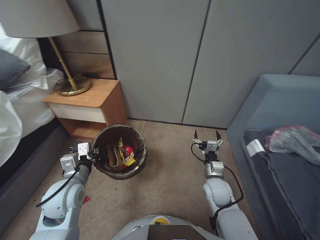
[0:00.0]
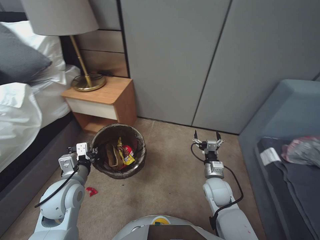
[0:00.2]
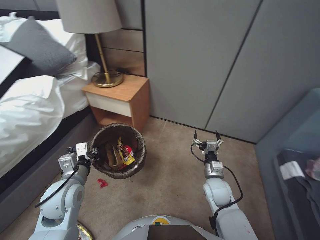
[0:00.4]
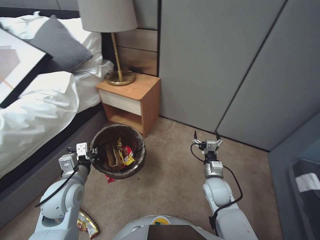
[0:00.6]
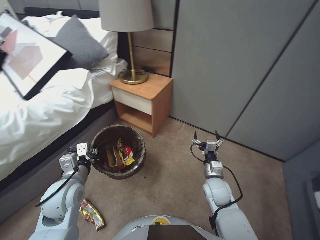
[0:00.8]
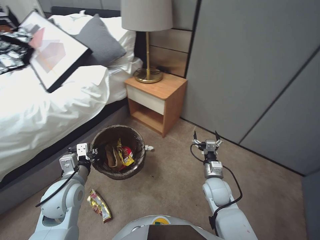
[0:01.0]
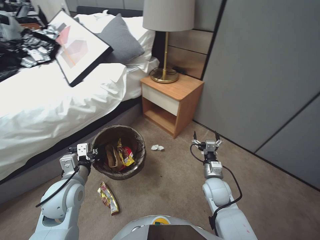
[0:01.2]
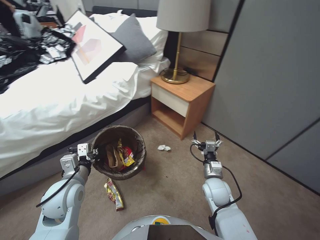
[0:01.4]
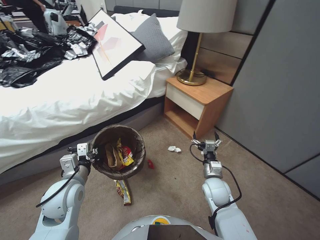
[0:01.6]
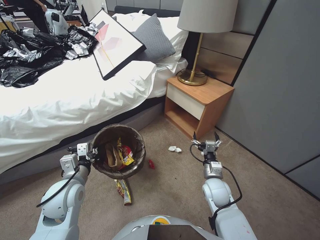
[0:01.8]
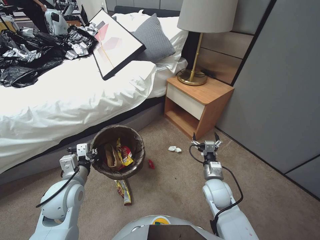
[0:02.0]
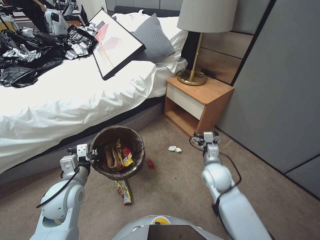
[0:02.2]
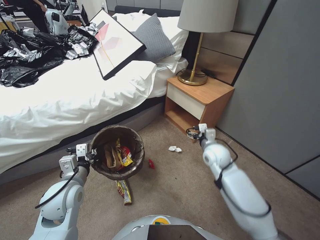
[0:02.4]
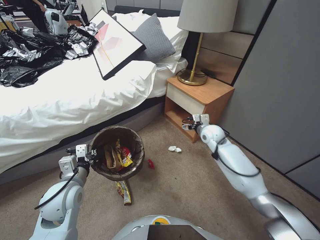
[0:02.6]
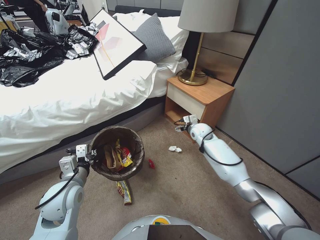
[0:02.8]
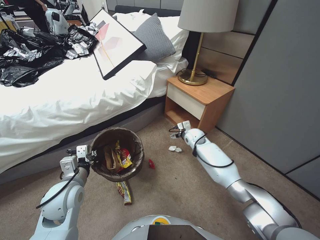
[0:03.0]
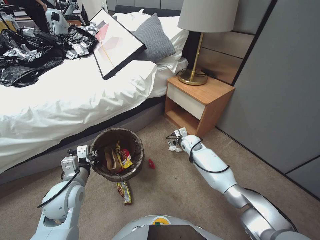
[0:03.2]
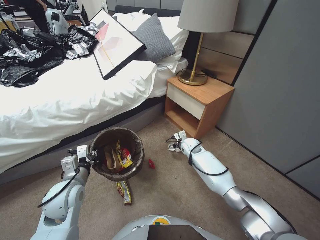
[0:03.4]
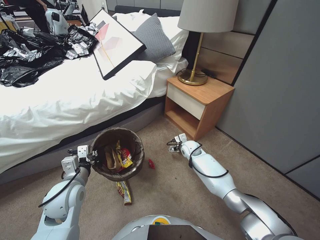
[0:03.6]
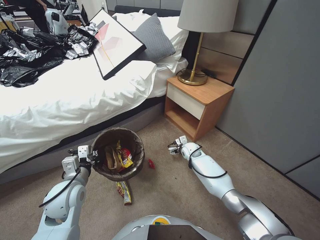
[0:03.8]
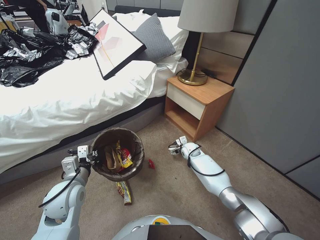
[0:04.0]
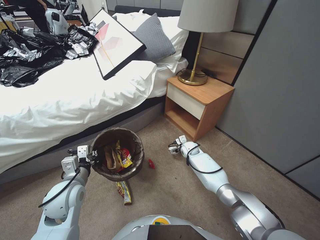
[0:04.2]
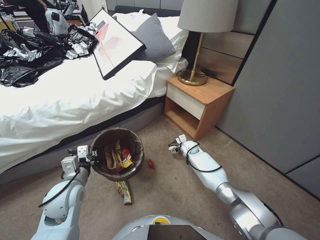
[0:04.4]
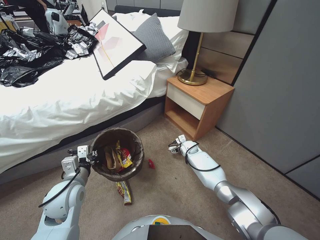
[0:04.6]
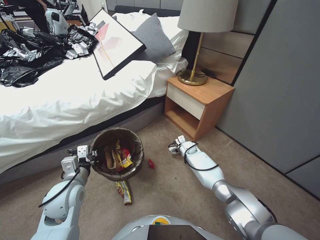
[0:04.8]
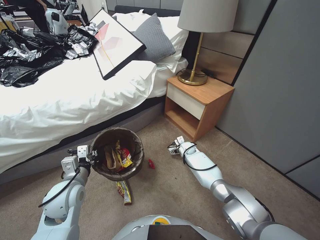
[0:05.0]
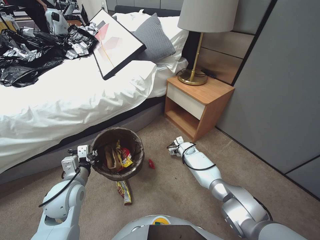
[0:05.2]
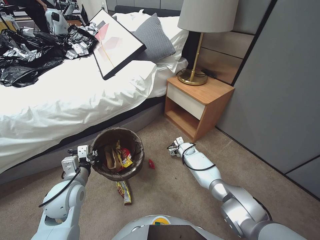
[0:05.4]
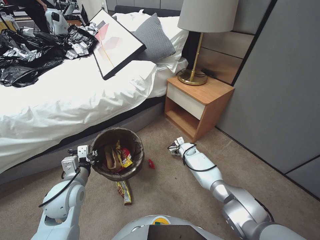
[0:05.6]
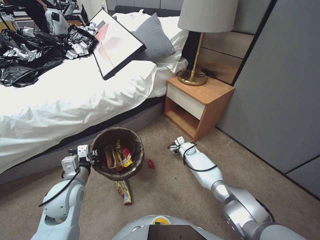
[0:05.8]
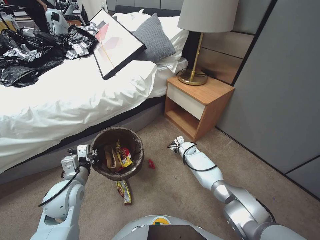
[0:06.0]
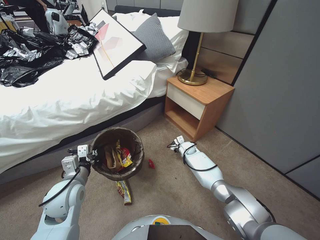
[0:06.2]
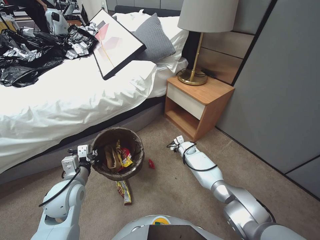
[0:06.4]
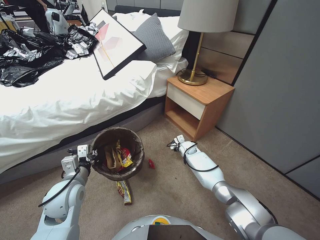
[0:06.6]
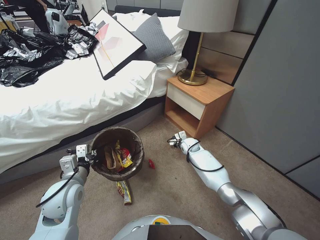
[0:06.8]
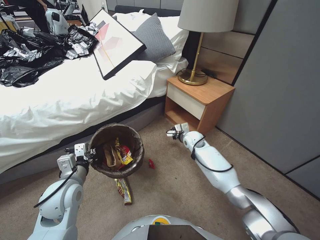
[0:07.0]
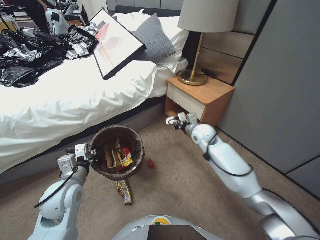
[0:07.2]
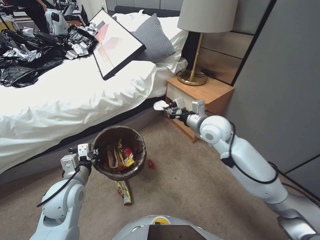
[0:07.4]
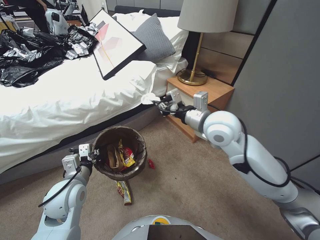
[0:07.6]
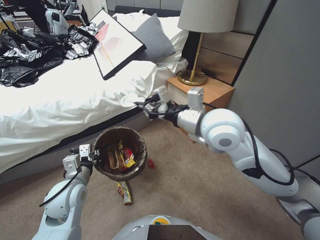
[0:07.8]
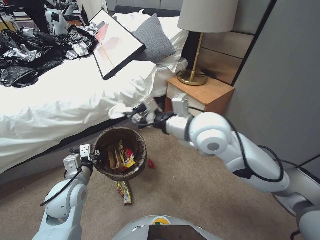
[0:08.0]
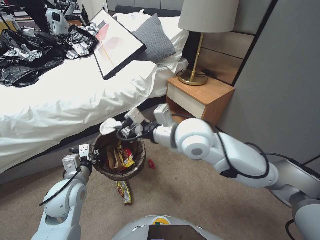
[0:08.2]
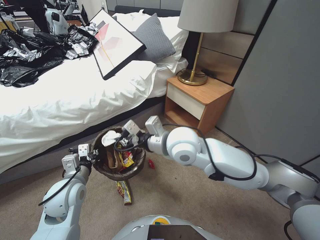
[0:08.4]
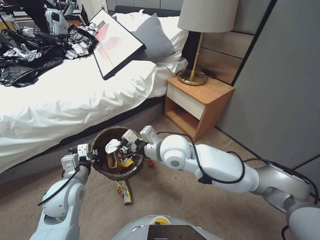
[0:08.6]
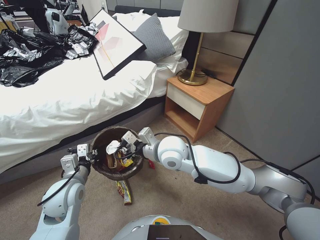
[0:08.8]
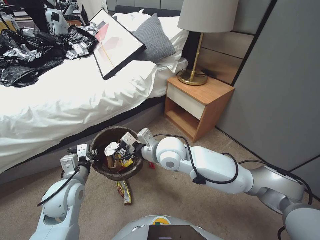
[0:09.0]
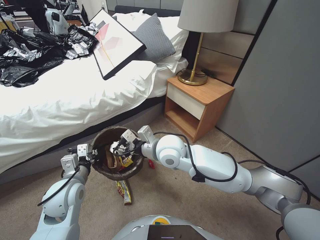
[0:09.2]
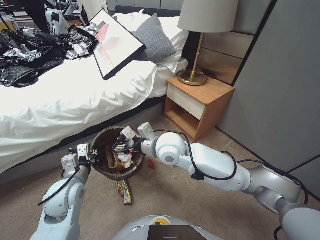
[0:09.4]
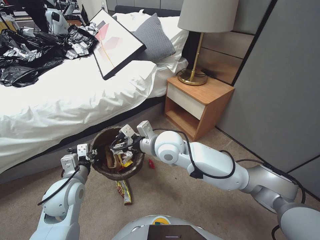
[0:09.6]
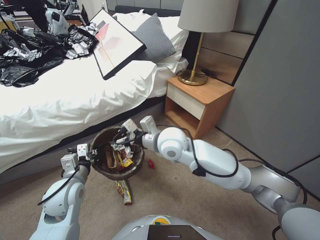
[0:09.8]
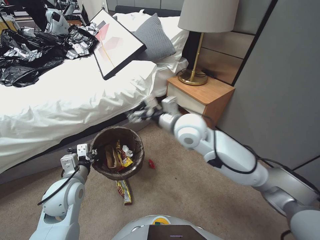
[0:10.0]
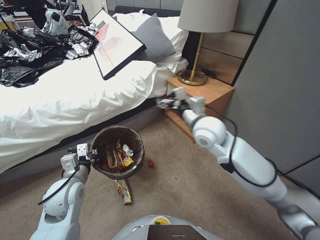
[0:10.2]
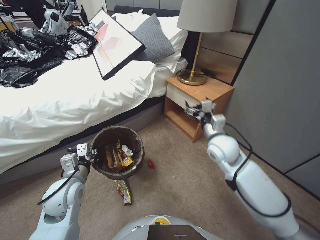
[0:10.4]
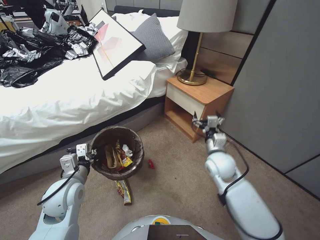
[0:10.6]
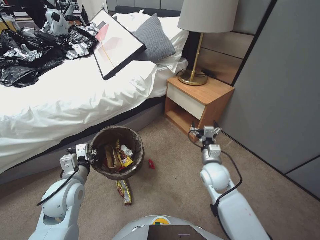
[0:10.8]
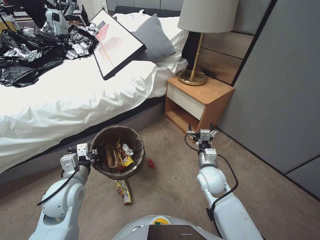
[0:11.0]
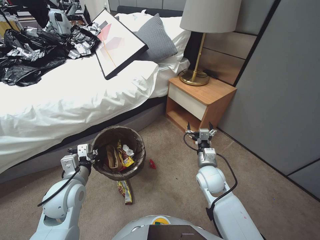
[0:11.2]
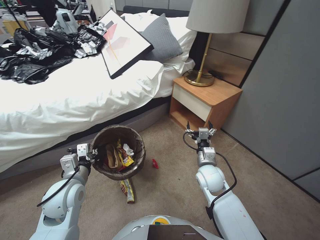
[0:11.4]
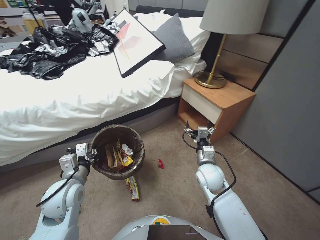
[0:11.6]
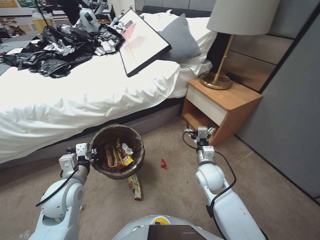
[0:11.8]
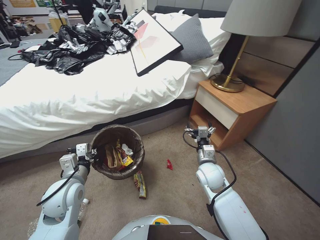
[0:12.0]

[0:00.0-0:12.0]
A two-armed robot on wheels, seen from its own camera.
Task of the whole recording: Pick up the trash bin, then pick up the garbage from the floor and place it into the trash bin.
0:01.6 to 0:03.0: The right gripper goes some 25 cm forward.
0:03.0 to 0:04.4: The right gripper heads downward, covering approximately 10 cm.
0:04.4 to 0:06.0: The right gripper closes.
0:06.0 to 0:07.6: The right gripper is displaced upward by approximately 35 cm, and closes its fingers.
0:07.6 to 0:09.0: The right gripper goes approximately 15 cm to the left and downward.
0:09.0 to 0:10.4: The right gripper travels to the right by some 15 cm, and opens up.
0:10.4 to 0:12.0: The right gripper travels downward by some 15 cm.

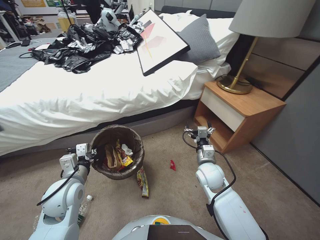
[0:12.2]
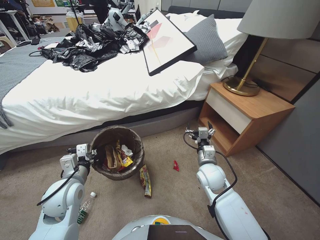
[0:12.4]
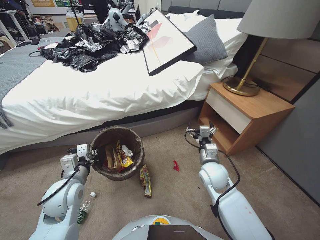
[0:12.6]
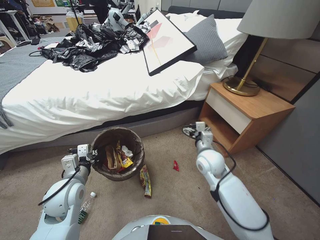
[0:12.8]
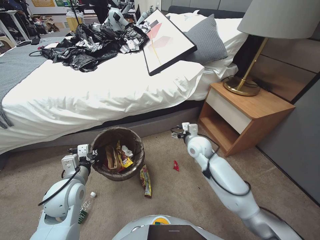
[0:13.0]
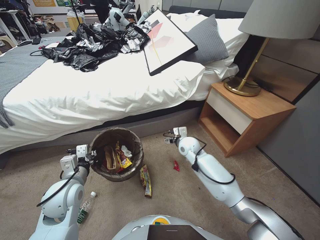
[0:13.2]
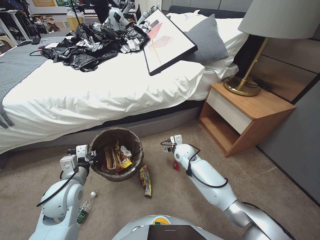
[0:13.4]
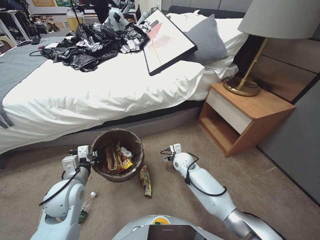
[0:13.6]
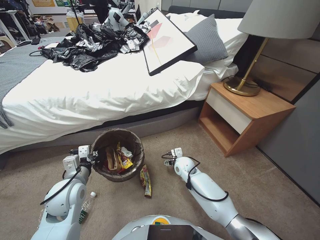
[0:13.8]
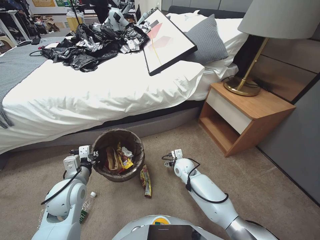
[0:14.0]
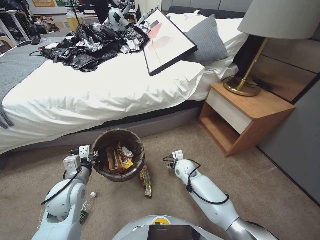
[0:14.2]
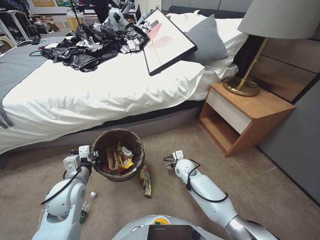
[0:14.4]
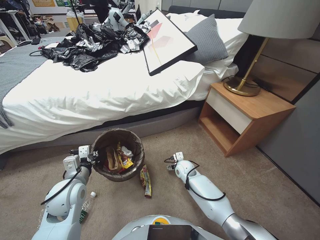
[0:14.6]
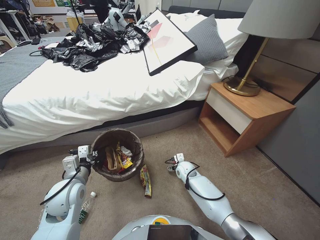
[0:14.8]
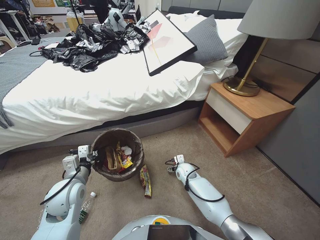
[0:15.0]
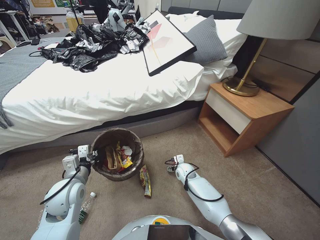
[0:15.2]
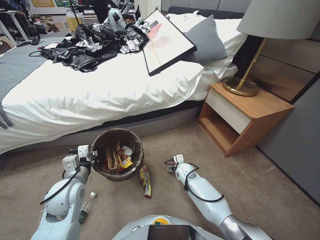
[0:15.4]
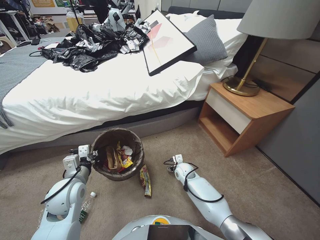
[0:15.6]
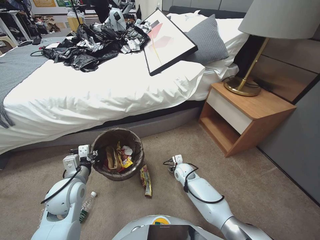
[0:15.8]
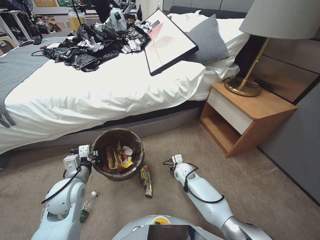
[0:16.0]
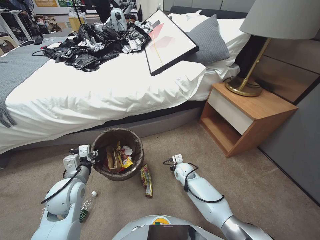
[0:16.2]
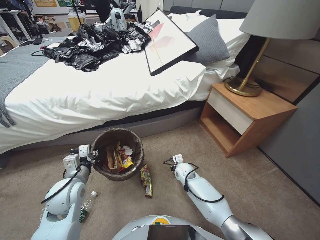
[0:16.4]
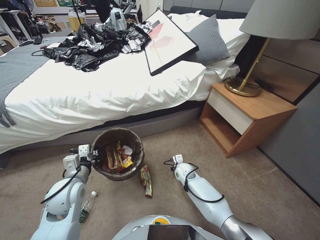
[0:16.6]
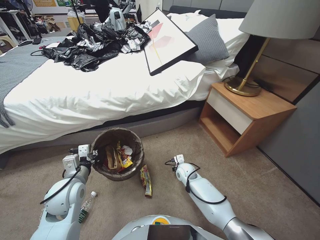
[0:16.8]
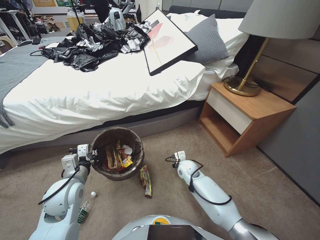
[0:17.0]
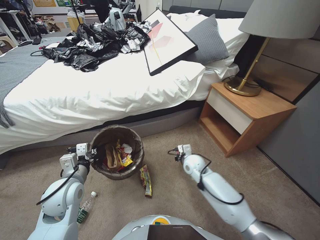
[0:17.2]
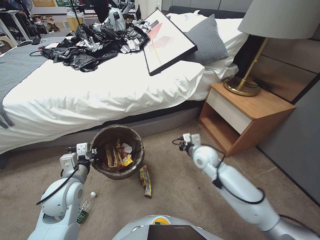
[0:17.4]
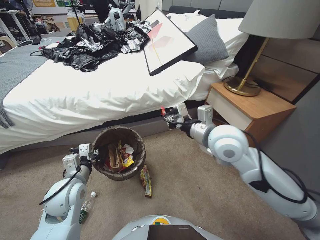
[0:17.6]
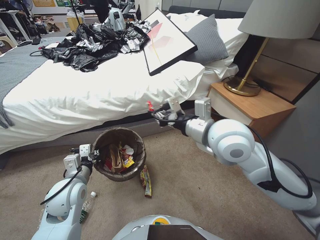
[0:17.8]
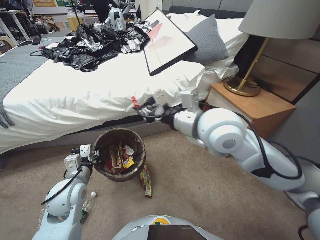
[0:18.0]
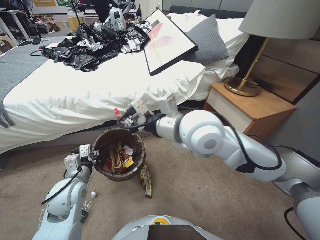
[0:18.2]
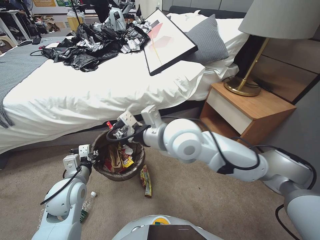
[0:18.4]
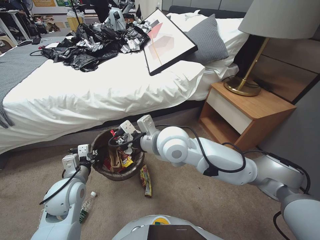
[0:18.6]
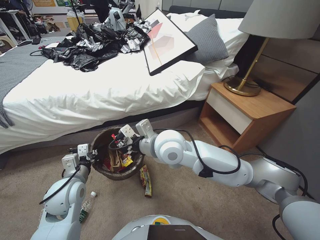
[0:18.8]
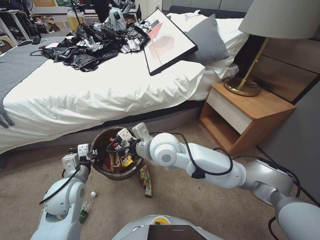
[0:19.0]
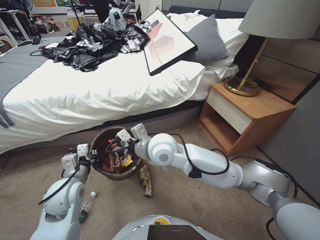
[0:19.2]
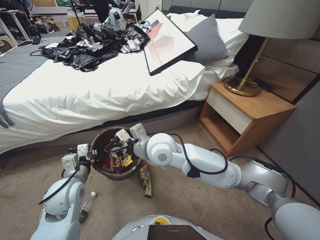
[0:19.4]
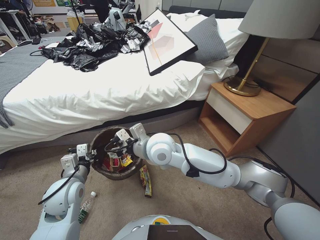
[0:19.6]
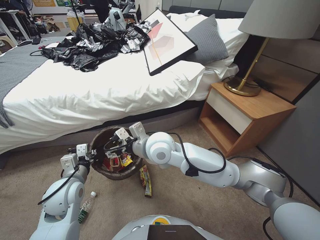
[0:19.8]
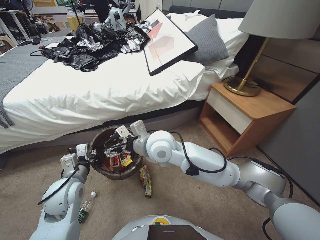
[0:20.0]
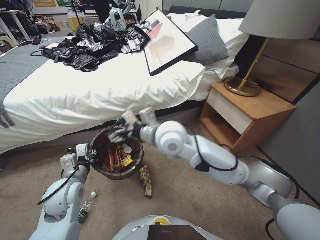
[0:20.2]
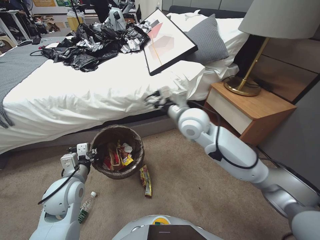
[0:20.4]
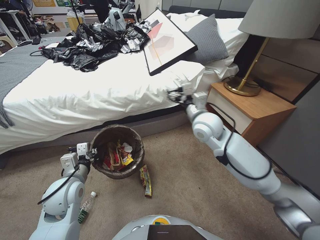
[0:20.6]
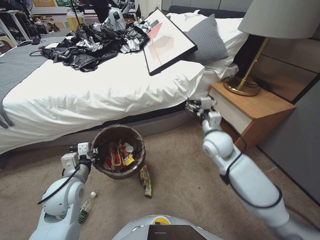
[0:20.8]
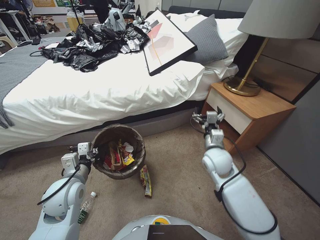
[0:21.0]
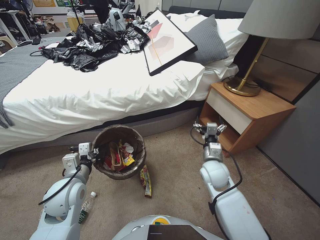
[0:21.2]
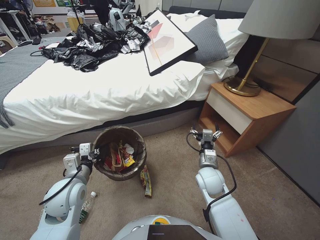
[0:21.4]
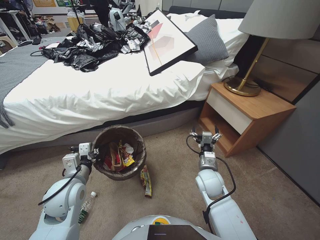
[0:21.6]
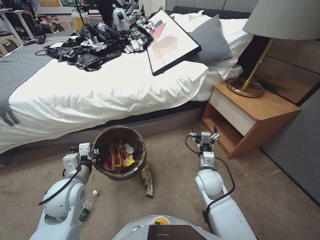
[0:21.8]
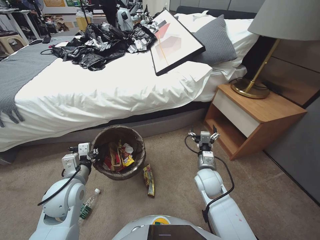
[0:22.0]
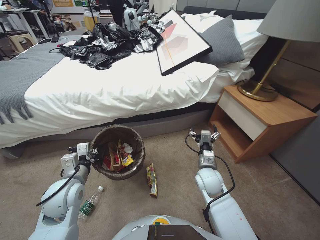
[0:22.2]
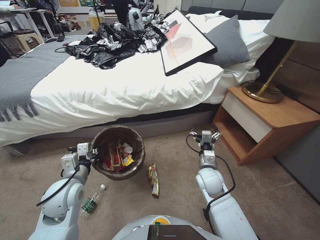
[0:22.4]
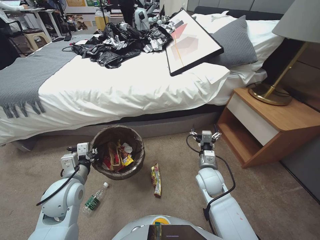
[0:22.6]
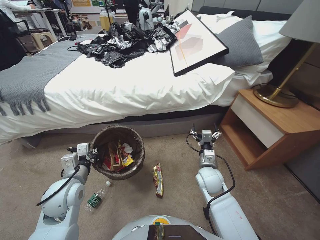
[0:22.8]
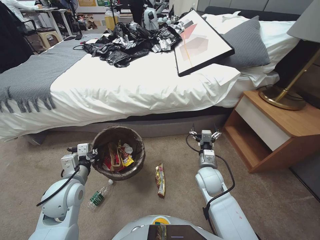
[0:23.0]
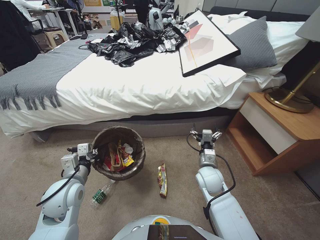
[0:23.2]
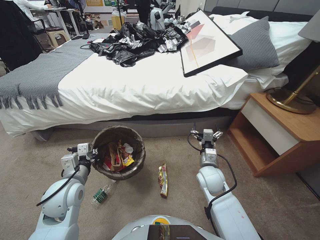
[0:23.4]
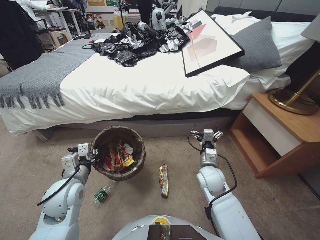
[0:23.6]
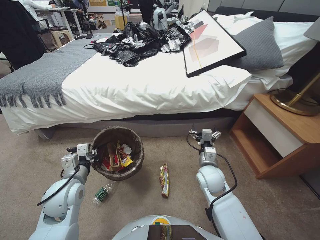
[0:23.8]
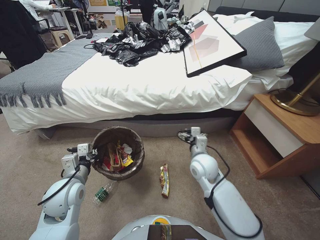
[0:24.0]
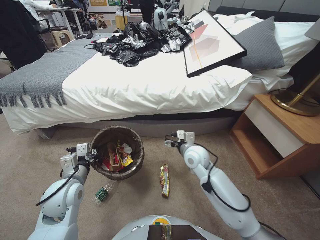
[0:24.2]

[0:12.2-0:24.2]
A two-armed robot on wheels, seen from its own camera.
Task of the whole recording: Pick up the trash bin, then pick up the garbage from the floor and place it into the trash bin.
0:12.2 to 0:13.8: The right gripper heads downward, forward and to the left, covering roughly 15 cm.
0:13.8 to 0:15.2: The right gripper is displaced downward by some 10 cm.
0:15.2 to 0:16.6: The right gripper closes up.
0:16.6 to 0:18.2: The right gripper is displaced upward by some 50 cm.
0:18.2 to 0:19.8: The right gripper travels downward and to the left by approximately 15 cm, and opens.
0:19.8 to 0:21.2: The right gripper moves to the right and downward, roughly 25 cm.
0:21.2 to 0:22.6: The right gripper moves downward, roughly 5 cm.
0:22.6 to 0:24.2: The right gripper is displaced upward by some 5 cm.
